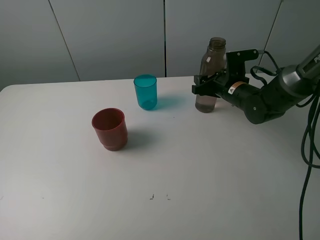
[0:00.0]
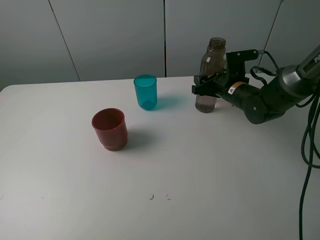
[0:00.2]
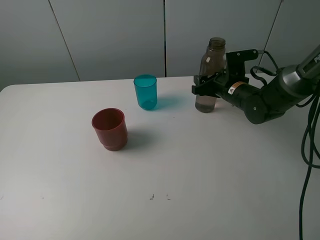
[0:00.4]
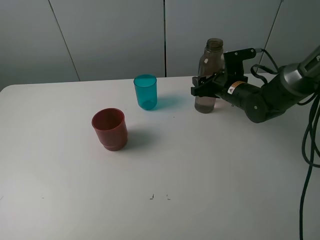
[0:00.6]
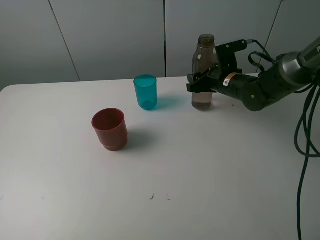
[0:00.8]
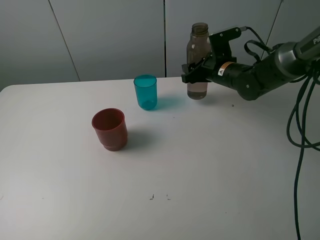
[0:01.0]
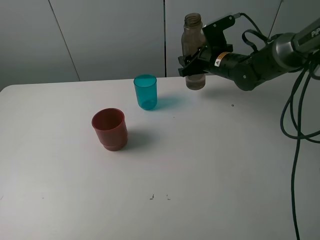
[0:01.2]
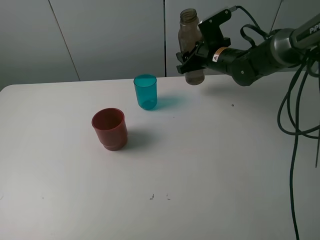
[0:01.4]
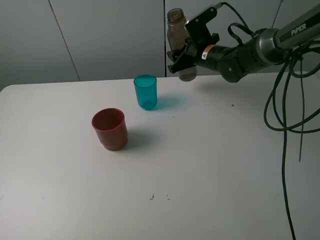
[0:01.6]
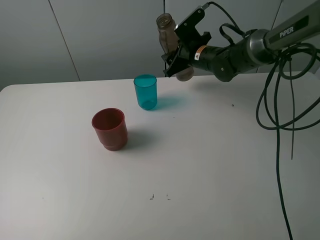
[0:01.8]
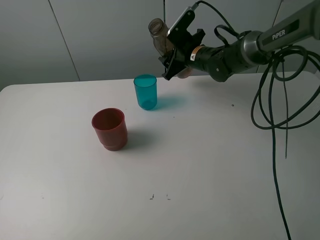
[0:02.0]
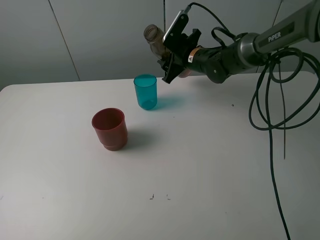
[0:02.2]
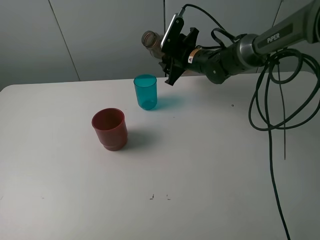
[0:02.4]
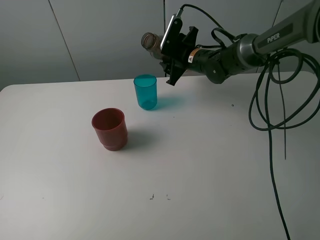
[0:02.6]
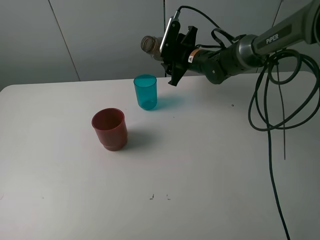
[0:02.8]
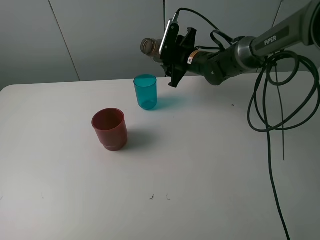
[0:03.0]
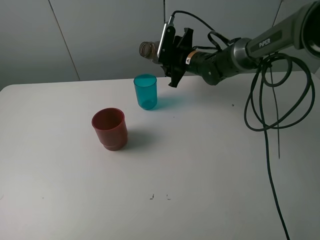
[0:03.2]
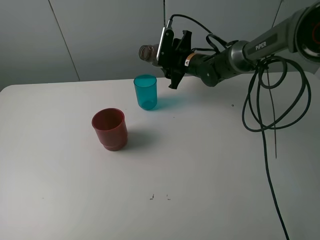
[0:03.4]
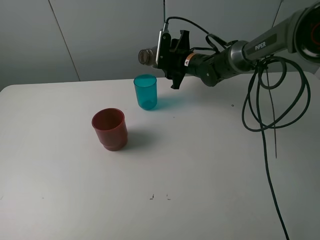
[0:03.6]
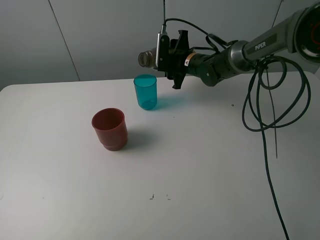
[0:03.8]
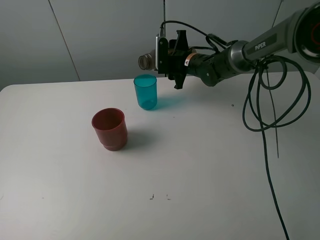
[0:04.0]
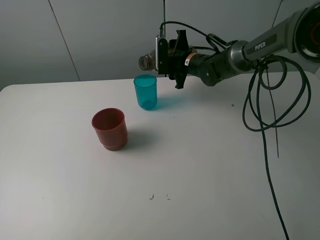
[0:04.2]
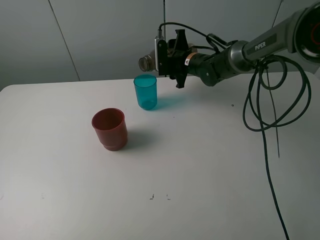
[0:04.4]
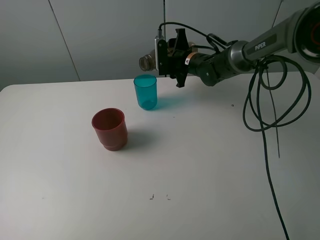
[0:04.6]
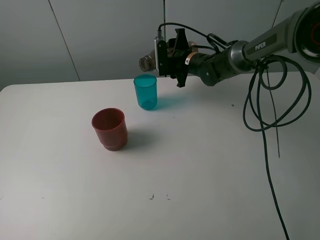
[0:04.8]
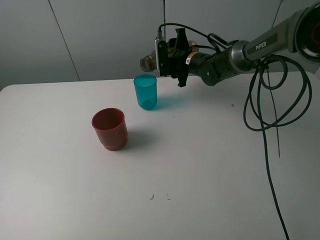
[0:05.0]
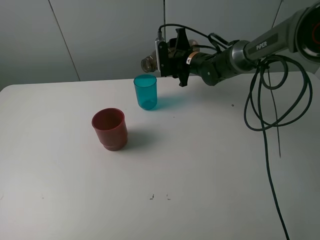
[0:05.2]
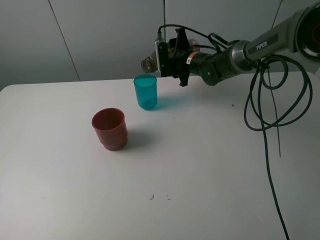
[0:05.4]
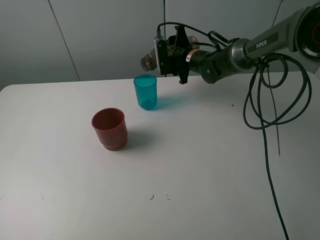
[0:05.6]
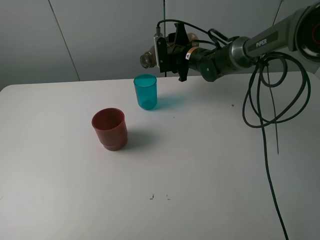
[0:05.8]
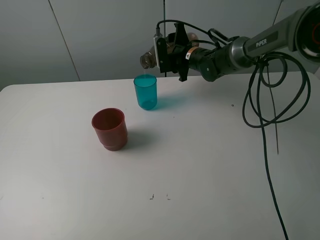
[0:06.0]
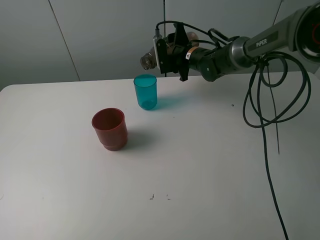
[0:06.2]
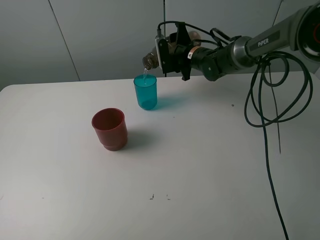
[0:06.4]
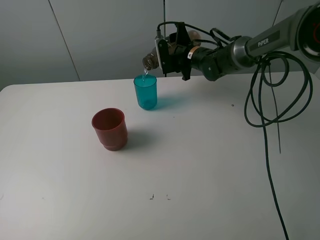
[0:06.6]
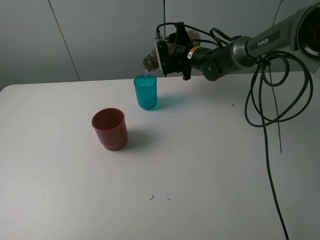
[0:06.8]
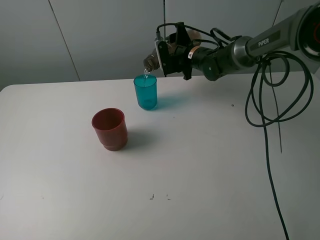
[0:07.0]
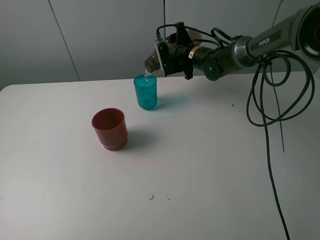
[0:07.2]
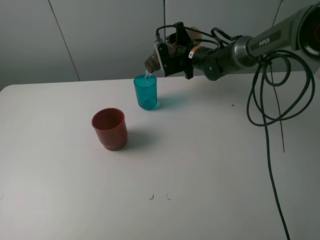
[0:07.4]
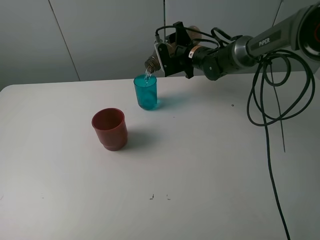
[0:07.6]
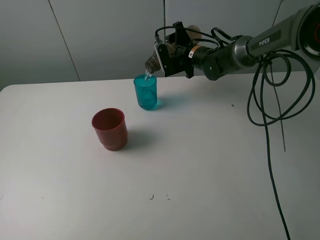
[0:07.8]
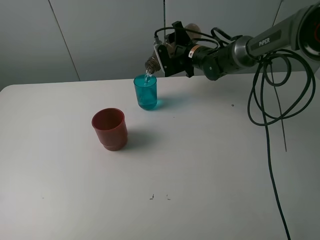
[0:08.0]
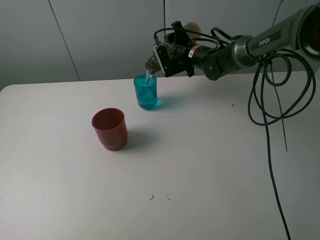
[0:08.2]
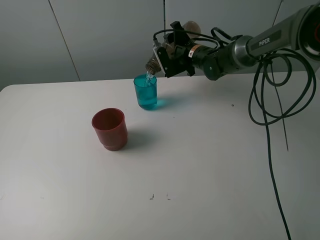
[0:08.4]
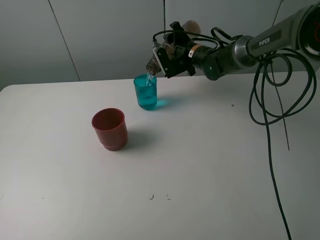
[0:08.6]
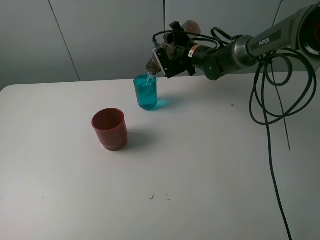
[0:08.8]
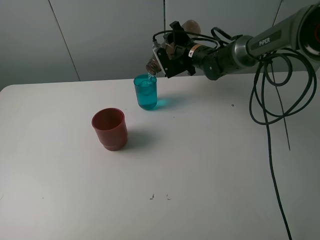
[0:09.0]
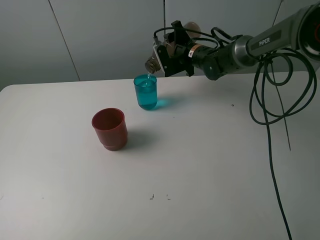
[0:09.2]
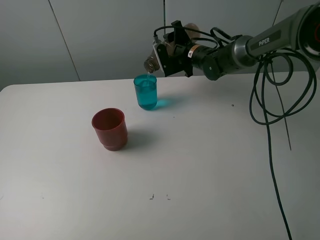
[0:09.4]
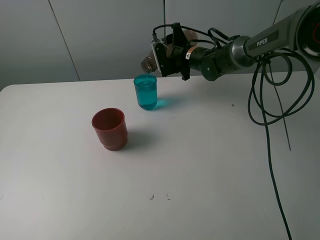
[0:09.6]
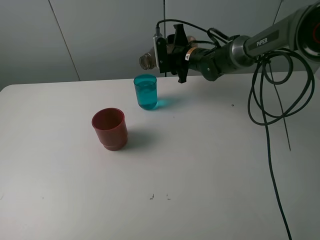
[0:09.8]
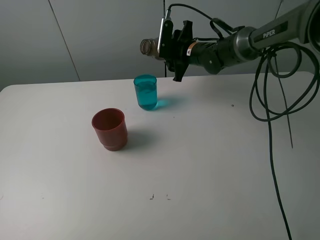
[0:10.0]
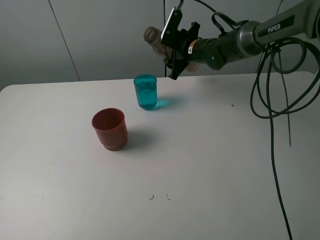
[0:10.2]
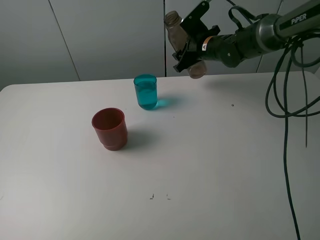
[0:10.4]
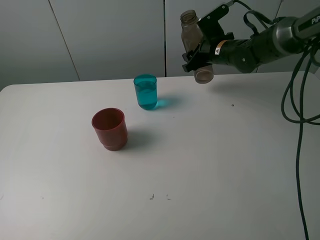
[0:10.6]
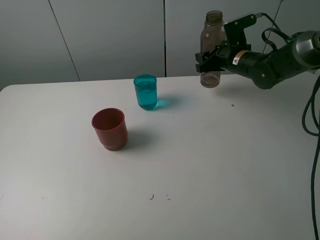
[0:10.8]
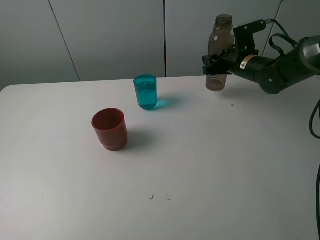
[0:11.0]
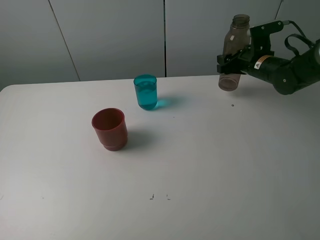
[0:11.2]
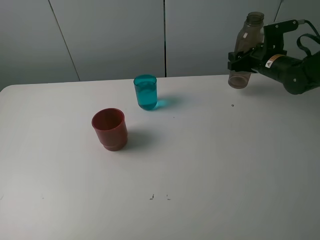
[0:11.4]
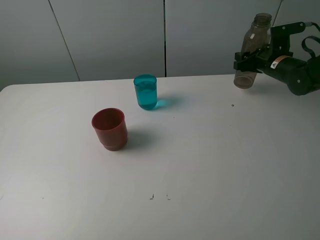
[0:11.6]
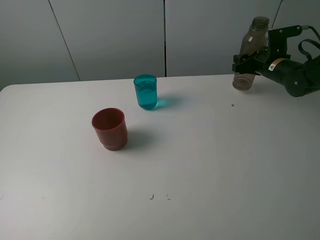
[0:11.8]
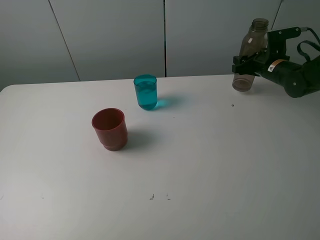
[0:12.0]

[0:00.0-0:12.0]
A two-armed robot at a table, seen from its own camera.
Task of the whole recording: pick up the bottle and pour water into the cup, then pick up the cup containing water and pour it into another cup.
Step, 0:00.4 to 0:09.8: Grasp the blue cup with the right gripper.
0:00.0 to 0:01.6: The right gripper shifts approximately 10 cm forward, to the left and upward.
0:04.4 to 0:07.6: The grippers stay close to where they were, moving slightly.
0:07.6 to 0:09.0: The grippers stay close to where they were, moving slightly.
0:10.4 to 0:12.0: The right gripper moves to the right, roughly 15 cm.

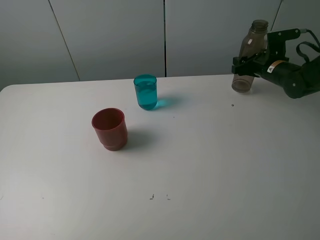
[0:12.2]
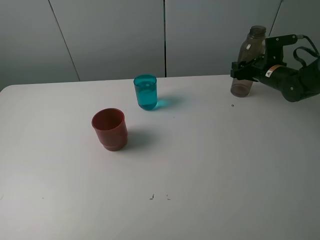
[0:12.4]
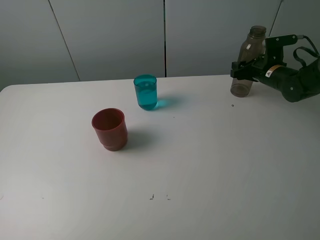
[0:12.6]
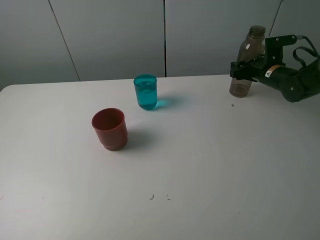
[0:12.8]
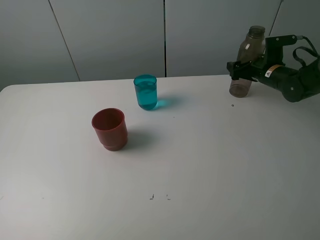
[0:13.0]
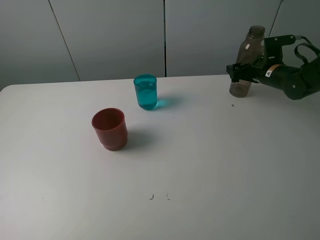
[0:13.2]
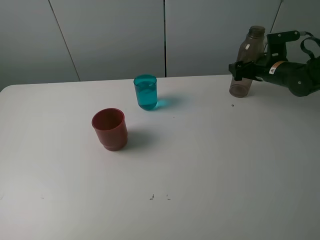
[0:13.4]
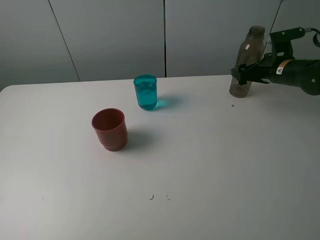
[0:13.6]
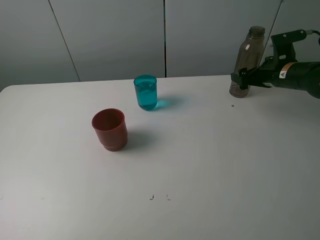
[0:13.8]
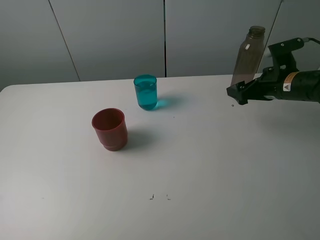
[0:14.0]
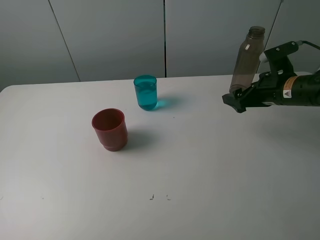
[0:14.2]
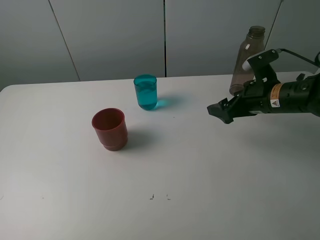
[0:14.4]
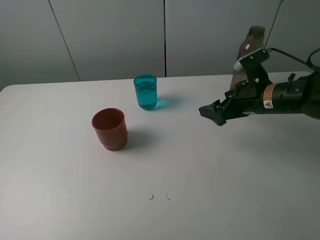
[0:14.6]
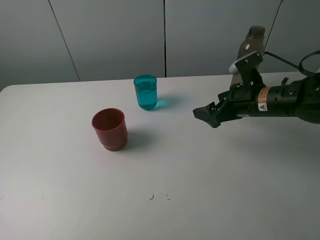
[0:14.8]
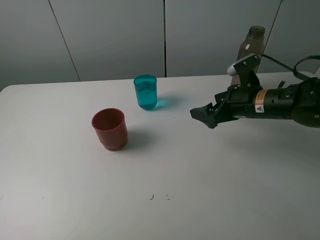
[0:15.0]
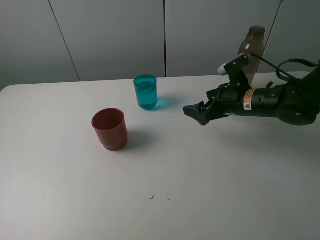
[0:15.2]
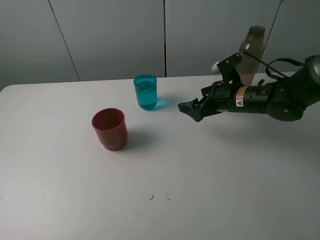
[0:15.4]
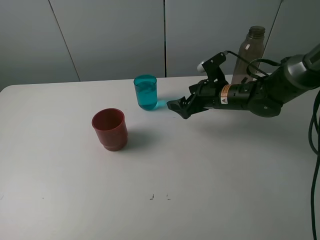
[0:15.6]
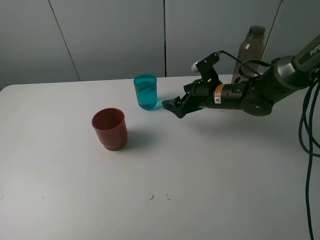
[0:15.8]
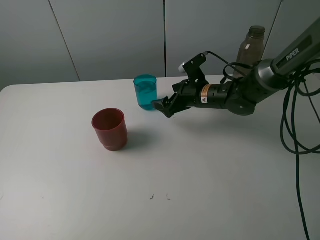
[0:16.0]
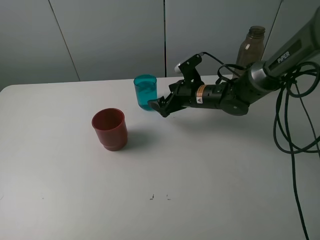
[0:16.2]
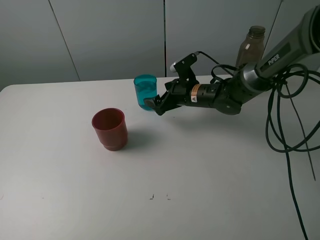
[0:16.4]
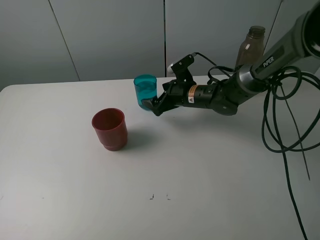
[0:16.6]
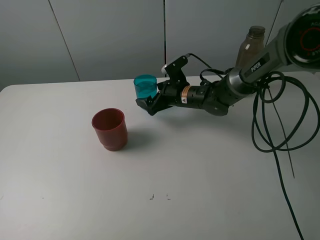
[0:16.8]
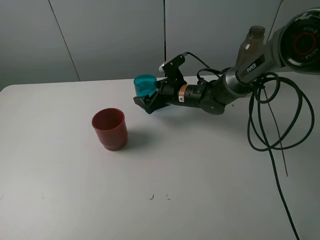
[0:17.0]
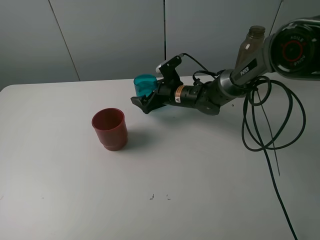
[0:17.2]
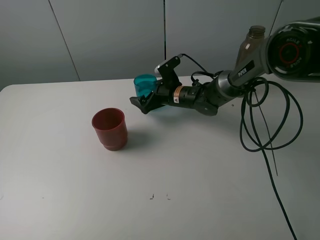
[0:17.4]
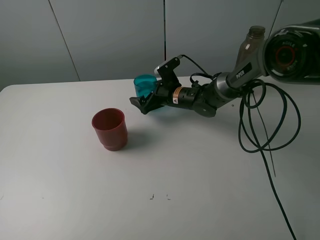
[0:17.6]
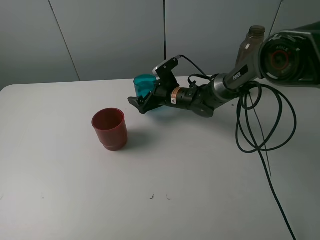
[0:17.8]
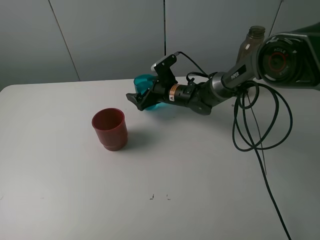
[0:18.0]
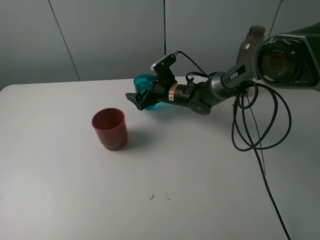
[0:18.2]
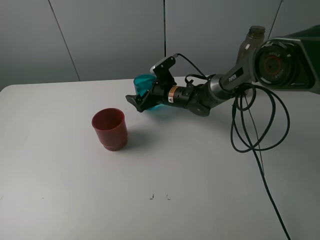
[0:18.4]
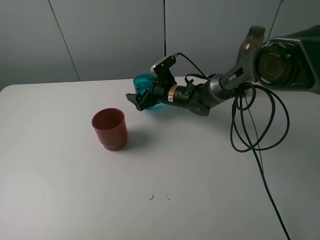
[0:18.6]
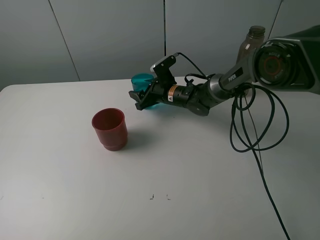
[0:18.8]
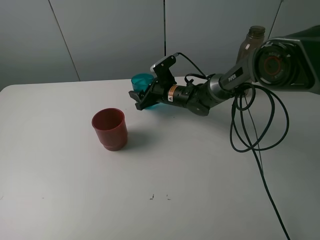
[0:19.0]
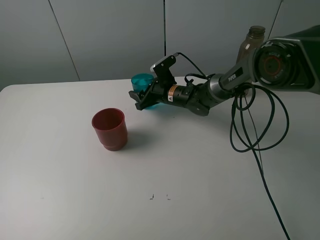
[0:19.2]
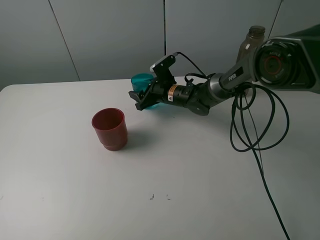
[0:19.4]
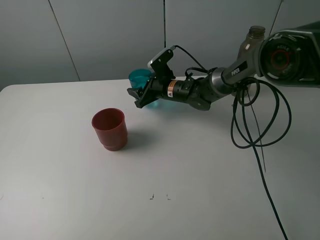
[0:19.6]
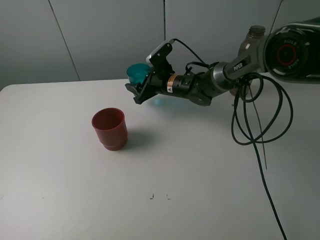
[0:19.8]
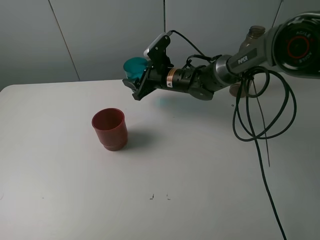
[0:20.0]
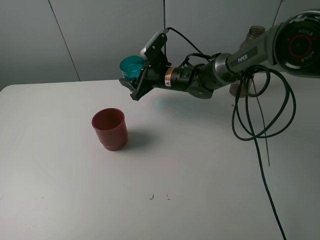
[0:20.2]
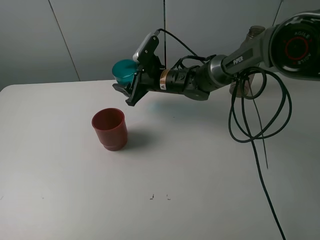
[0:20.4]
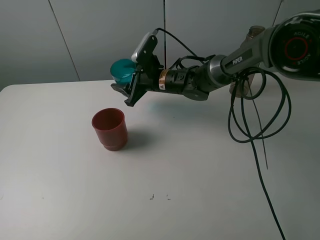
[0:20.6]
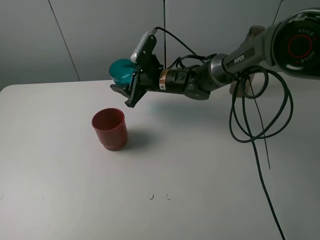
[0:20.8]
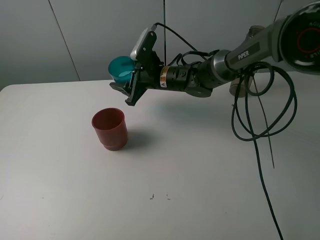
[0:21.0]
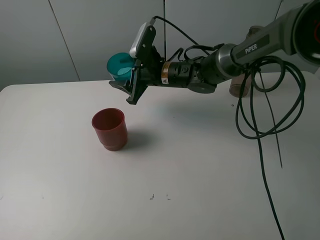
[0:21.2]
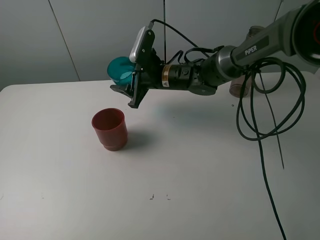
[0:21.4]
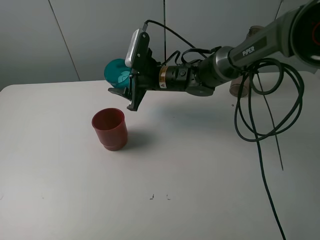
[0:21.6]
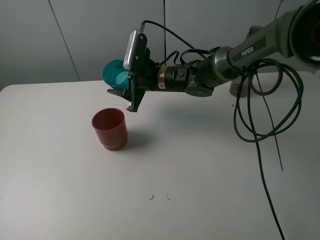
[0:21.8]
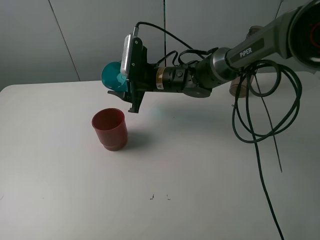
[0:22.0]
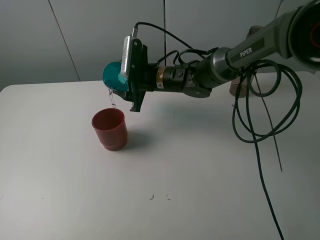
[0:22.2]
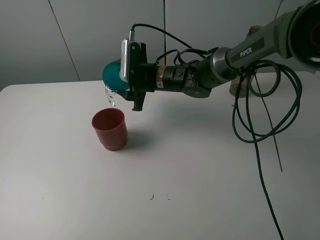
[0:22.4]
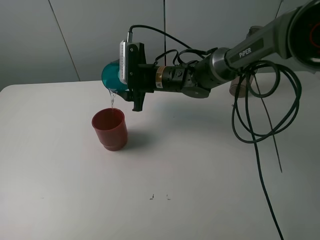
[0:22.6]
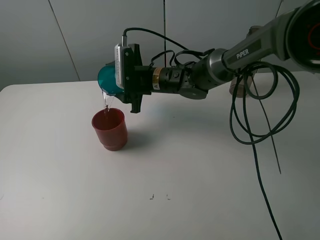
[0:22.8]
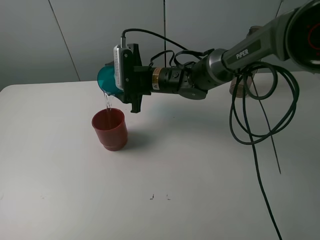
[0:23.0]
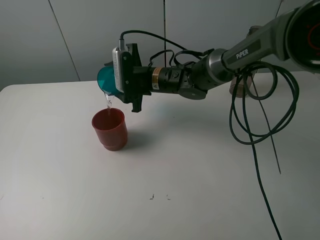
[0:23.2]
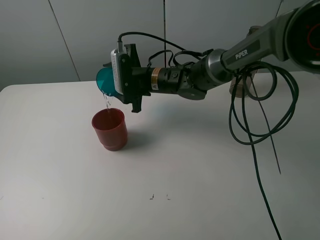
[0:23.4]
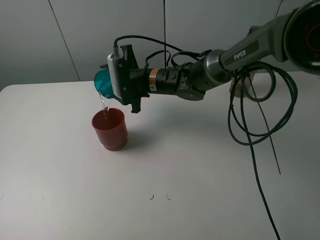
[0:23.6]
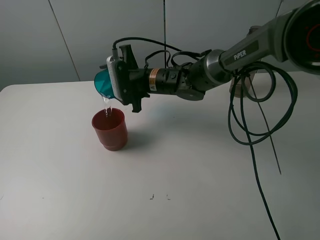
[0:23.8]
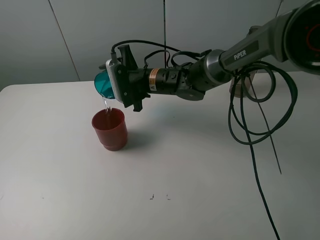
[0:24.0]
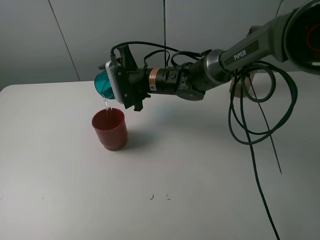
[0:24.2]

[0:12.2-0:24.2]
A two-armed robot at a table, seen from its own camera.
Task of the whole recording: pick up the bottle and pour water into the cup, then pick up the cup containing water and pour it into another cup.
Step, 0:13.4 to 0:18.8: Grasp the blue cup with the right gripper.
0:12.2 to 0:13.8: The right gripper goes some 5 cm backward, and opens up.
0:13.8 to 0:15.2: The right gripper heads to the left and backward, covering about 10 cm.
0:15.2 to 0:16.6: The right gripper heads to the left and forward, covering approximately 15 cm.
0:16.6 to 0:18.2: The right gripper changes place by roughly 5 cm.
0:18.2 to 0:19.8: The right gripper closes up.
0:19.8 to 0:21.2: The right gripper is displaced upward by some 5 cm.
